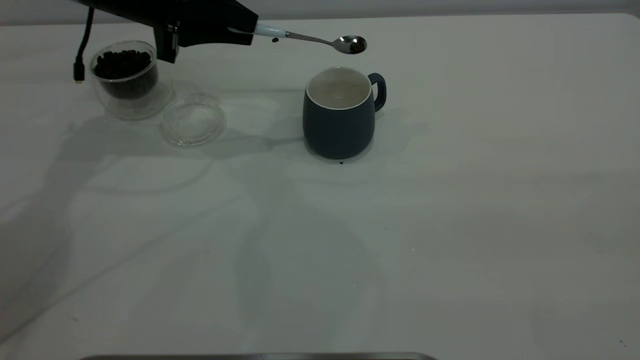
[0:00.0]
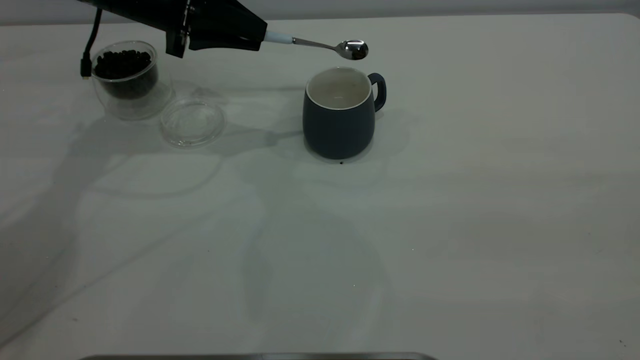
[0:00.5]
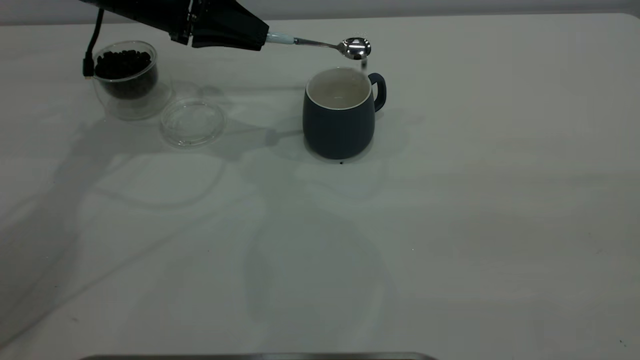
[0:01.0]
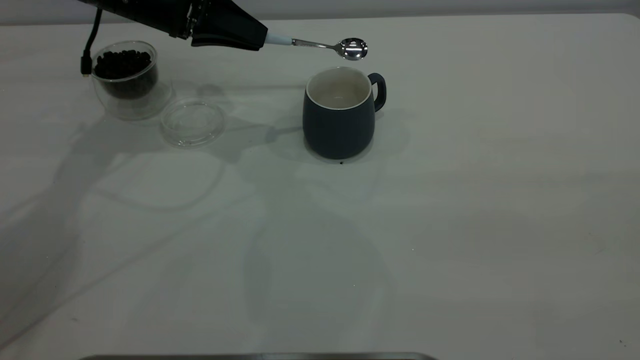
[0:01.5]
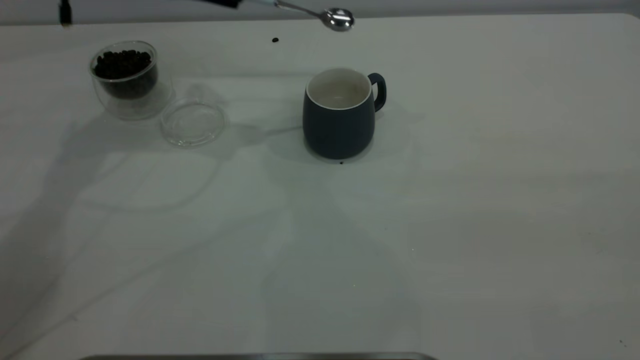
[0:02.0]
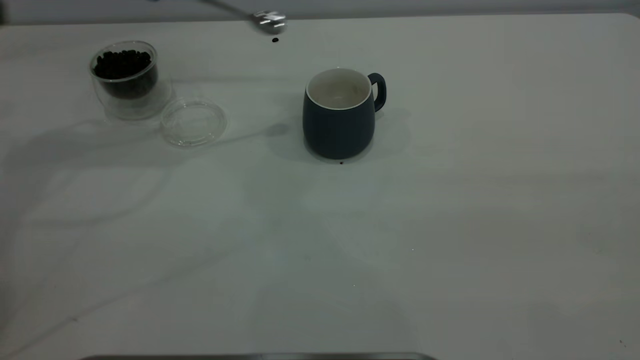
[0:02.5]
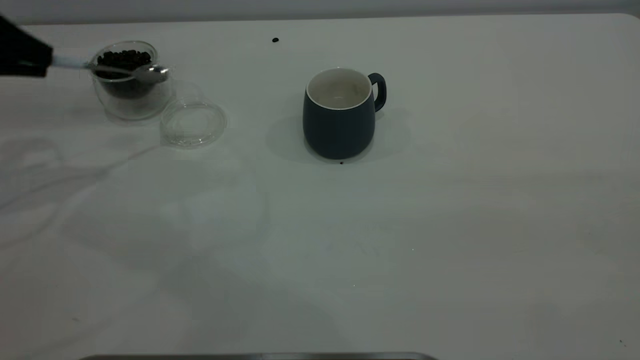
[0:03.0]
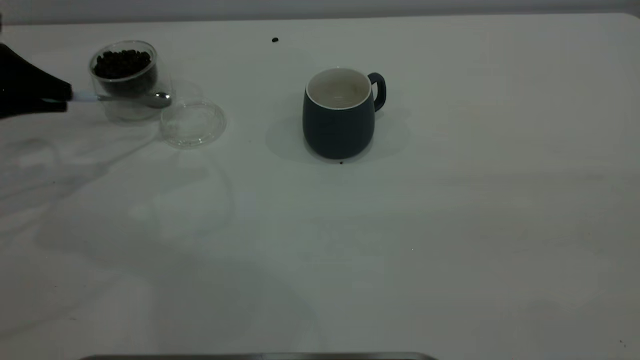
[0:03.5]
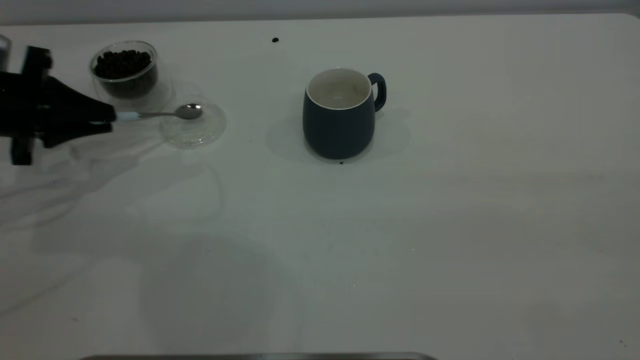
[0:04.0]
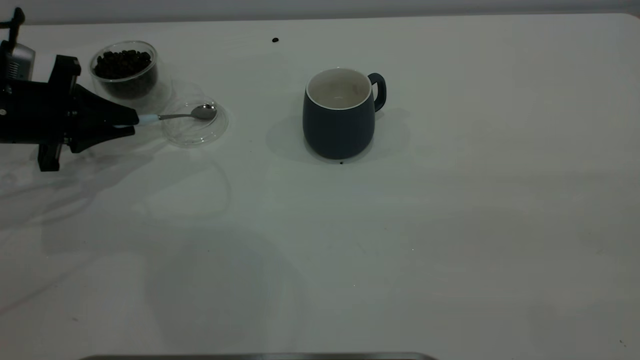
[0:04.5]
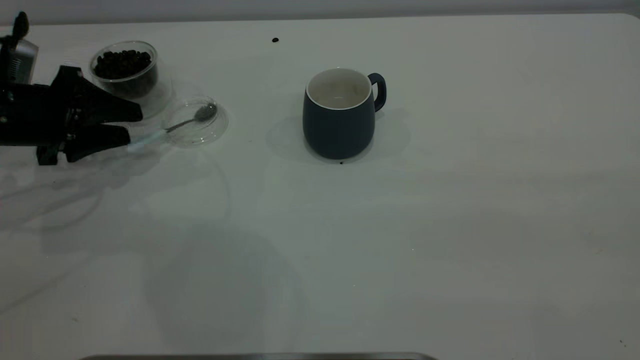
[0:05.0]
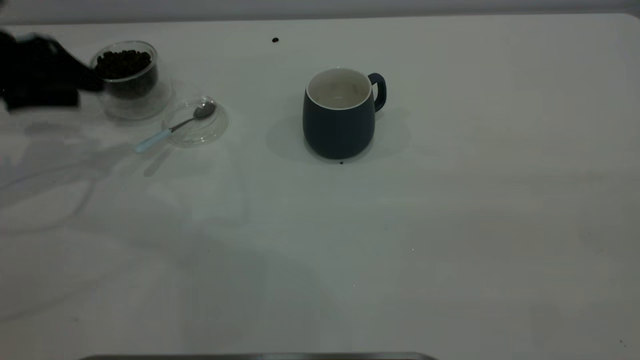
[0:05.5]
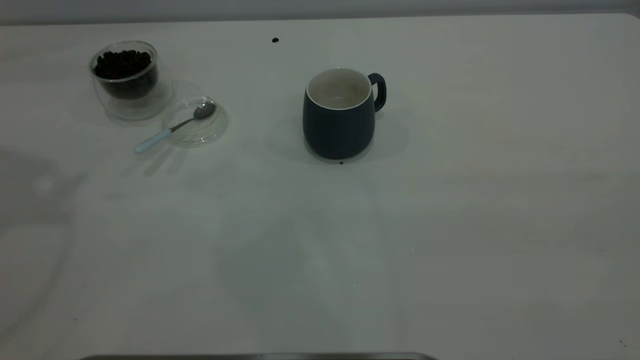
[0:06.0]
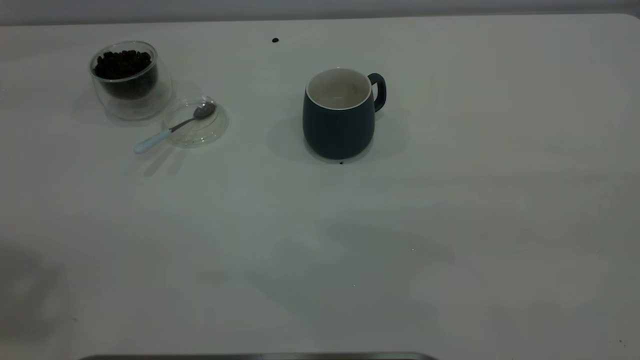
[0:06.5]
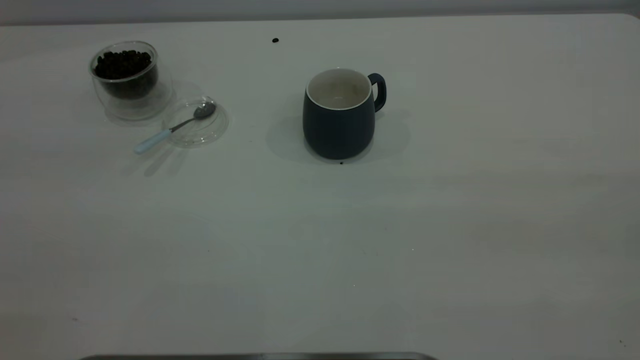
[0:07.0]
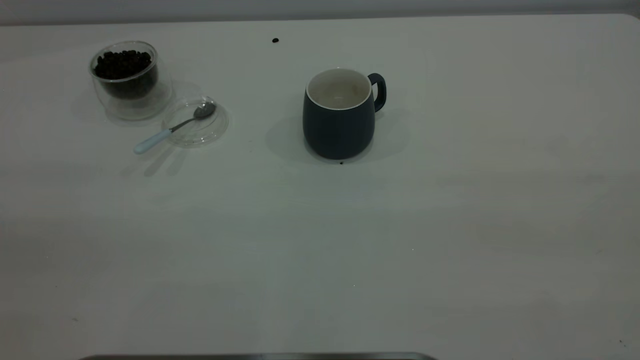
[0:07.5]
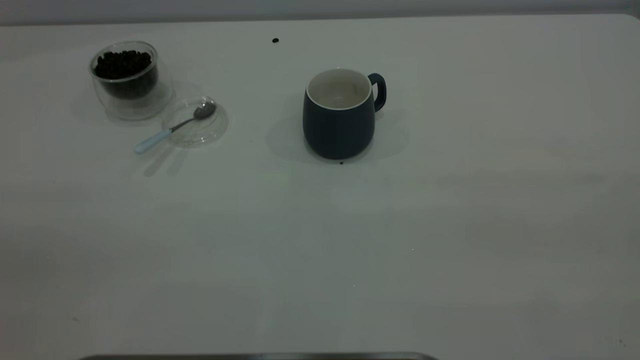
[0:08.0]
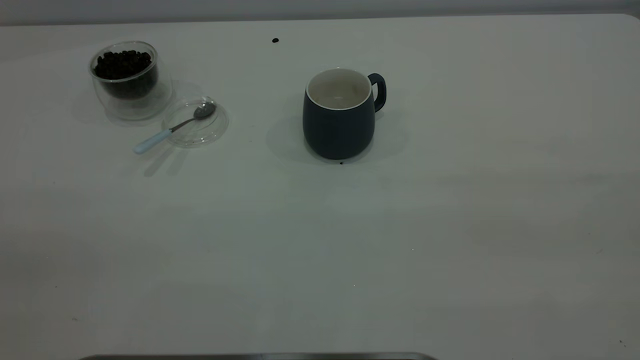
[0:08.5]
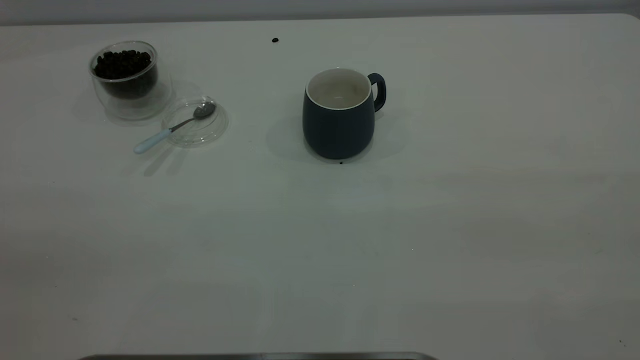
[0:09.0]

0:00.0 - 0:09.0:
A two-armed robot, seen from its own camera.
Task of the whole recording: the right gripper place the grey cup in the center of the table, the left gripper take the blue spoon from the cup lid and scoop out the coffee beans from the coffee cup and put them into the grey cup, the left gripper put the spoon back into the cup lid.
Step, 0:02.0 - 0:05.5: Place the spoon back in its original place.
0:00.0 - 0:02.0: The left gripper shifts roughly 5 cm upward.
0:02.0 - 0:04.5: The left gripper heads downward, to the left and backward, covering approximately 25 cm.
0:04.5 - 0:07.0: The left gripper travels upward and backward by approximately 50 cm, and opens.

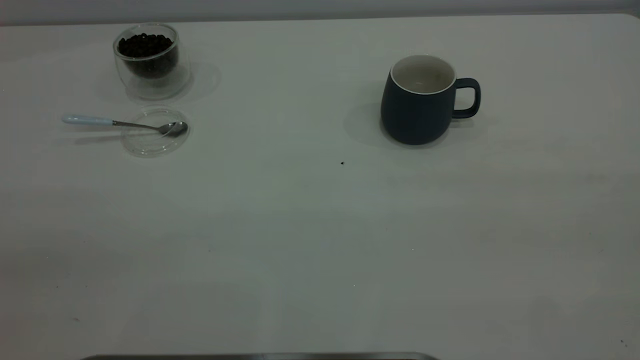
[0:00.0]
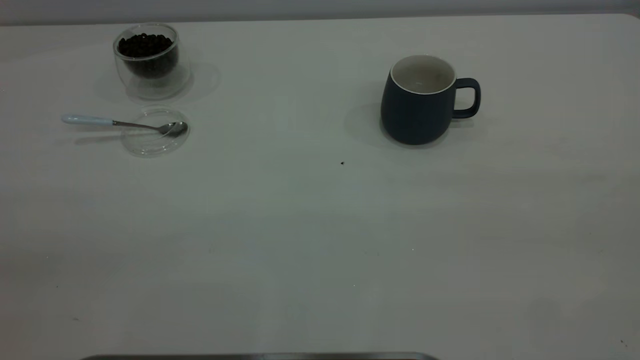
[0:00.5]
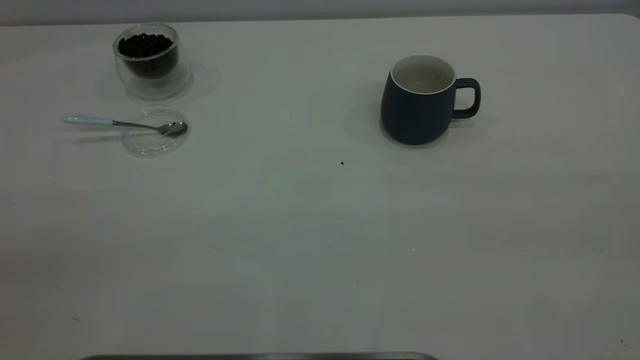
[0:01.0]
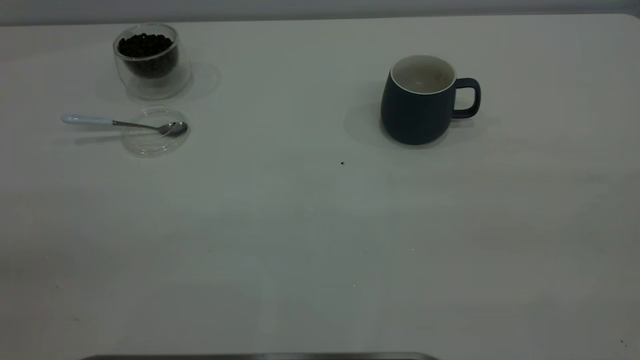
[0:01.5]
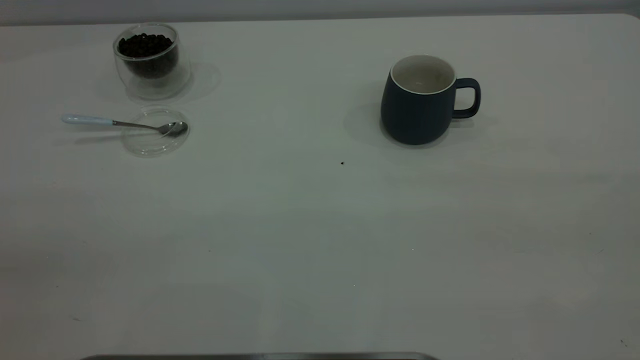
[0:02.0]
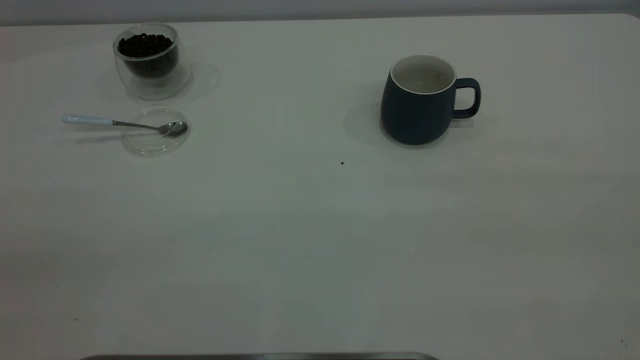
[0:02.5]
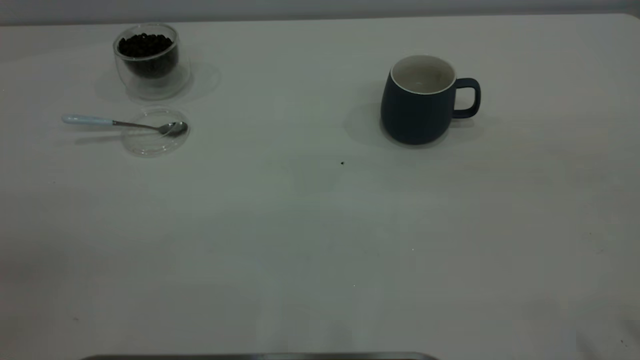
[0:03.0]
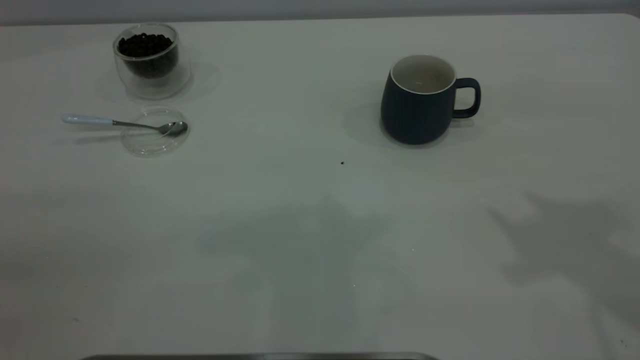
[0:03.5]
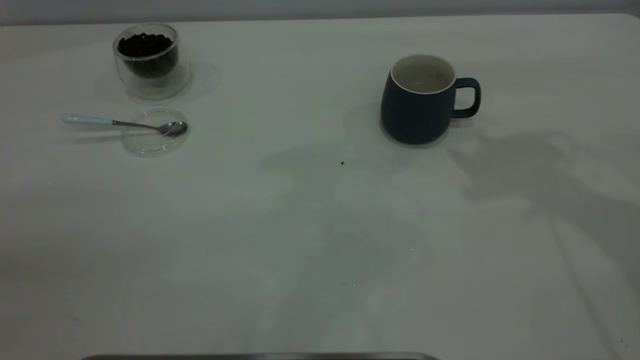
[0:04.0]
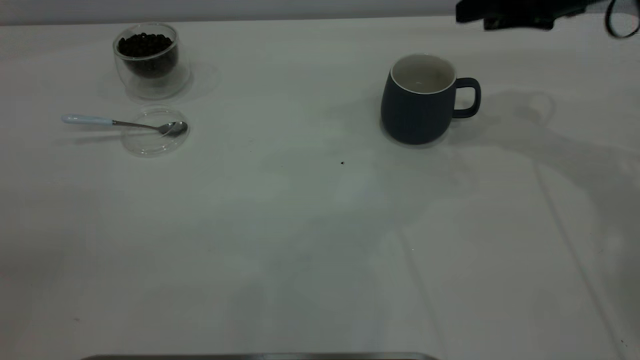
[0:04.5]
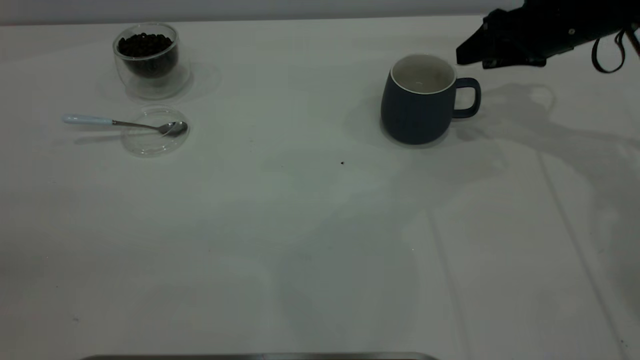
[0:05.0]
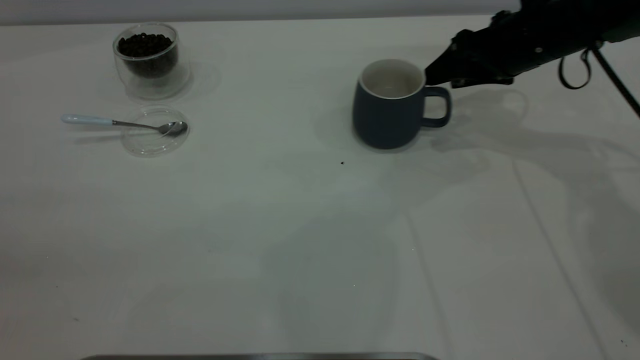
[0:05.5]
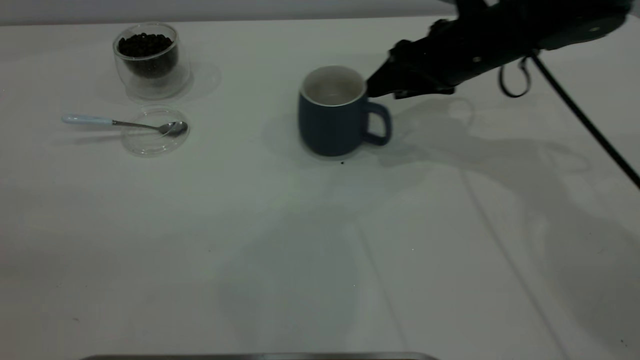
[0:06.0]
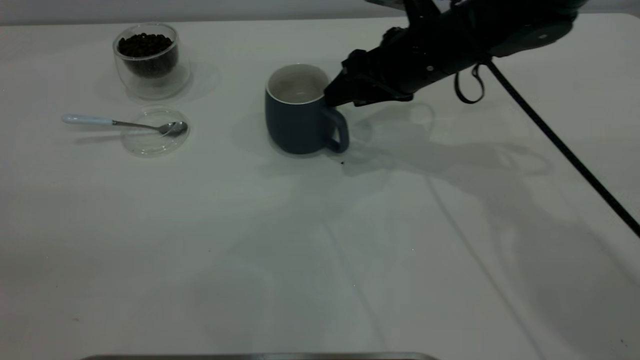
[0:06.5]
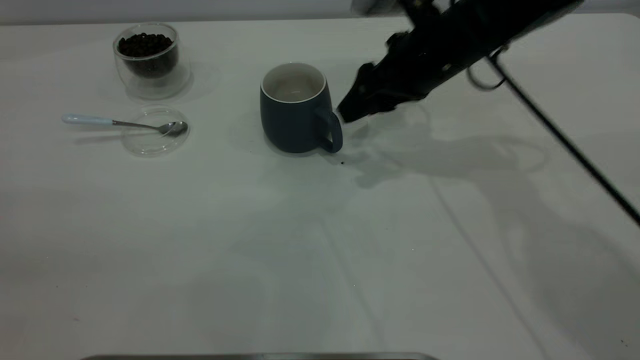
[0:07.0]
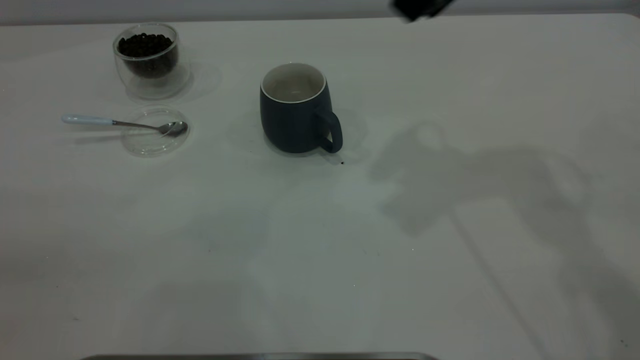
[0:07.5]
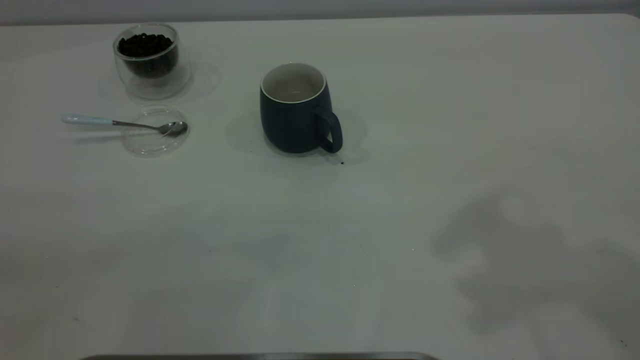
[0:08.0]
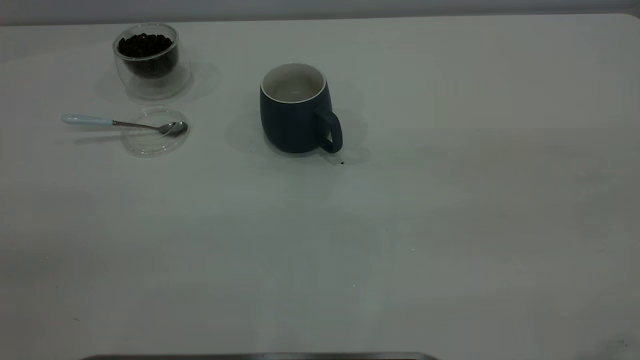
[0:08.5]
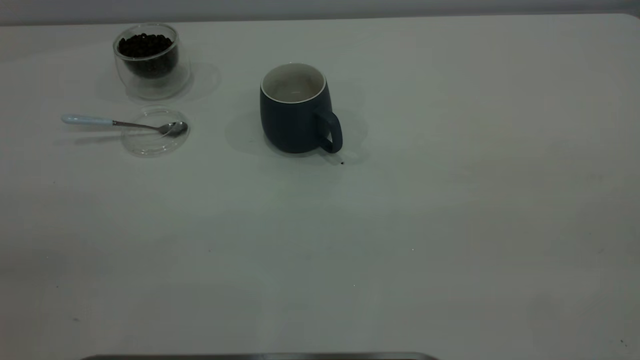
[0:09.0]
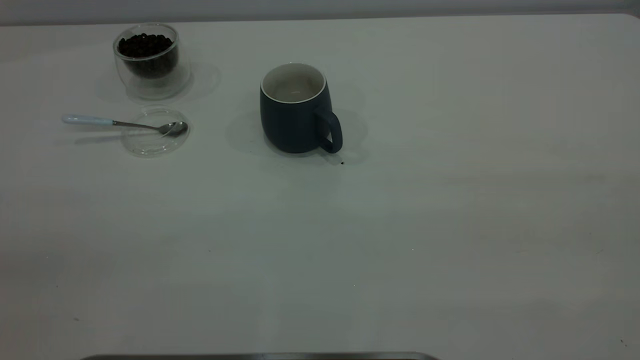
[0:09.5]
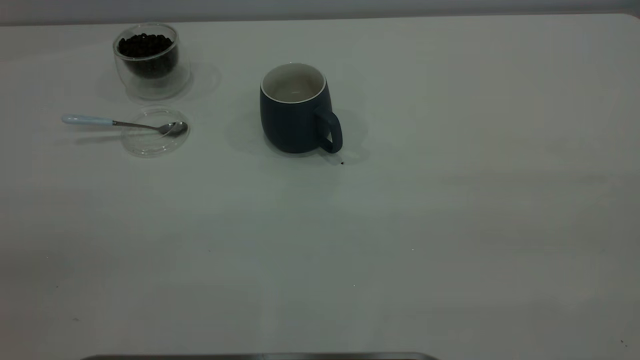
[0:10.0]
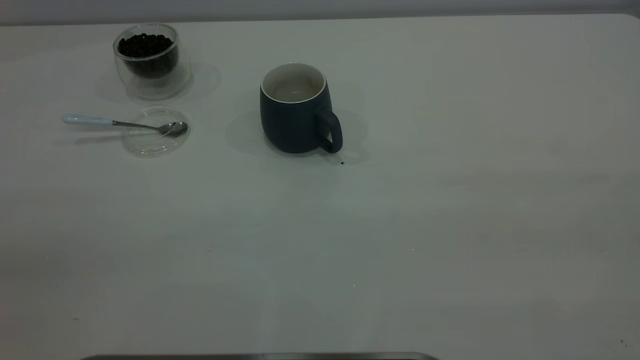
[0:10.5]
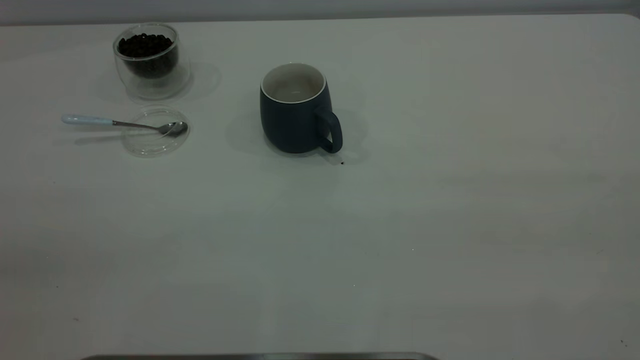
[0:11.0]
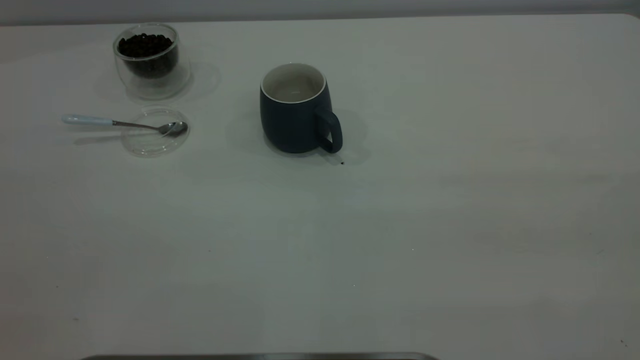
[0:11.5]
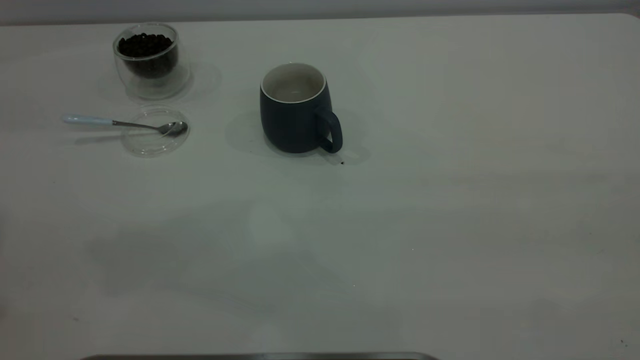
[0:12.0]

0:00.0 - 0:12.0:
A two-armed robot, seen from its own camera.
Task of the whole recording: the right gripper place the grey cup in the center of the table, the left gripper take the blue spoon from the cup lid and scoop out the coffee beans from the coffee cup and put them into the grey cup, the left gripper put the spoon back into the cup lid.
Step, 0:00.0 - 0:07.0: Move the cup to the center of view.
0:00.0 - 0:02.0: Neither gripper changes place.
0:04.0 - 0:06.0: The right gripper travels downward, to the left and forward by some 20 cm.
0:06.0 - 0:08.0: The right gripper heads upward and backward, covering about 35 cm.
